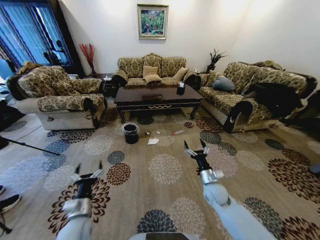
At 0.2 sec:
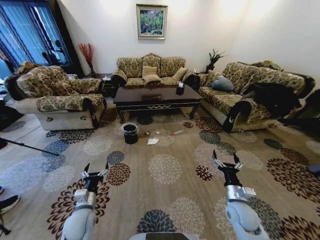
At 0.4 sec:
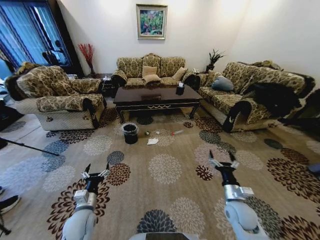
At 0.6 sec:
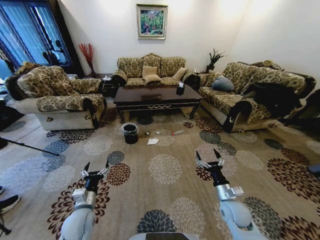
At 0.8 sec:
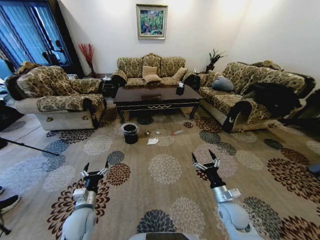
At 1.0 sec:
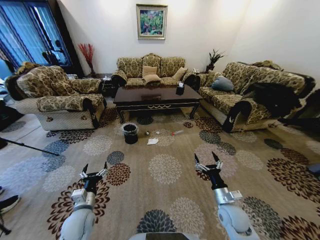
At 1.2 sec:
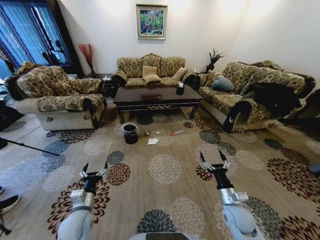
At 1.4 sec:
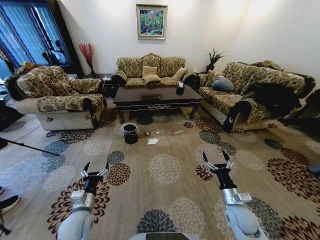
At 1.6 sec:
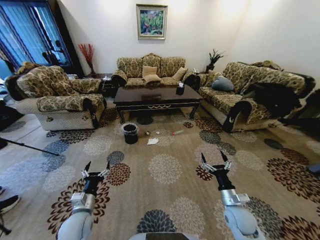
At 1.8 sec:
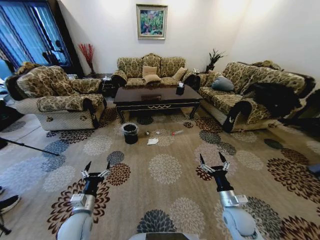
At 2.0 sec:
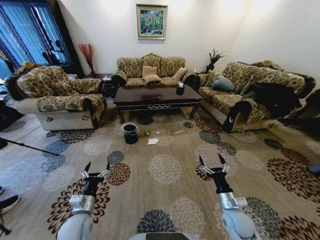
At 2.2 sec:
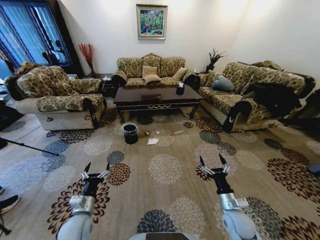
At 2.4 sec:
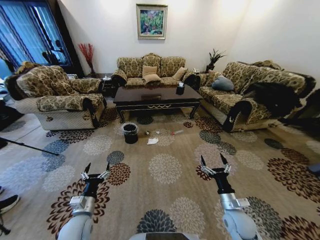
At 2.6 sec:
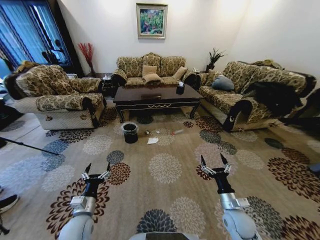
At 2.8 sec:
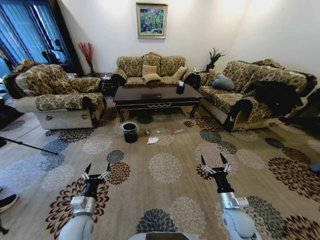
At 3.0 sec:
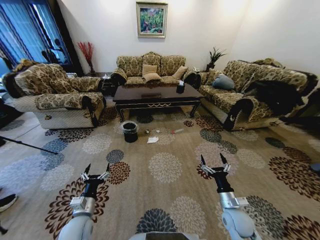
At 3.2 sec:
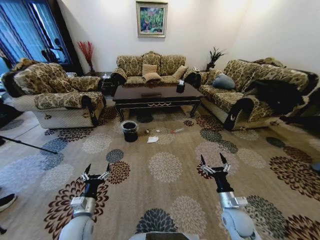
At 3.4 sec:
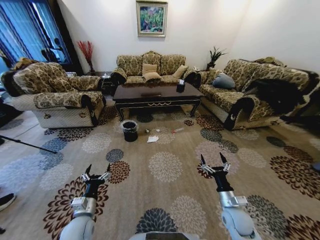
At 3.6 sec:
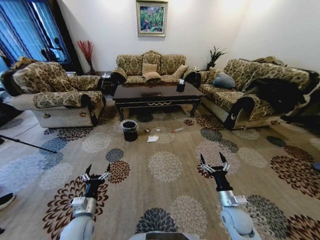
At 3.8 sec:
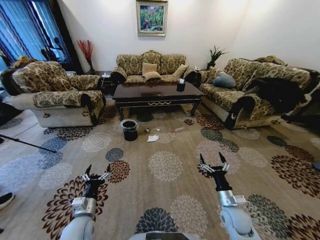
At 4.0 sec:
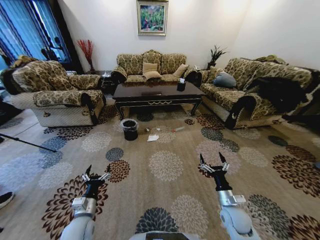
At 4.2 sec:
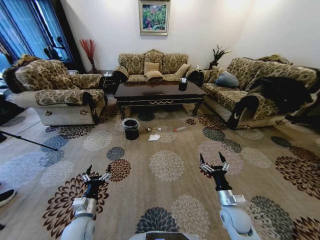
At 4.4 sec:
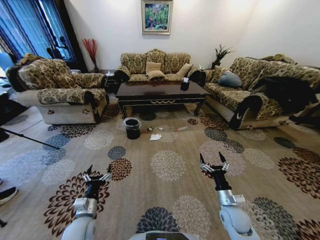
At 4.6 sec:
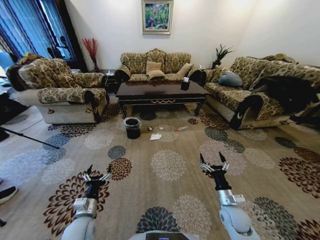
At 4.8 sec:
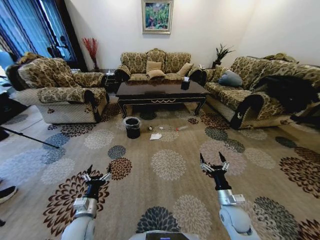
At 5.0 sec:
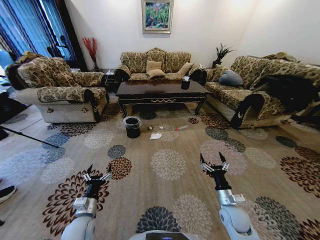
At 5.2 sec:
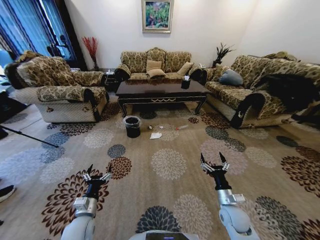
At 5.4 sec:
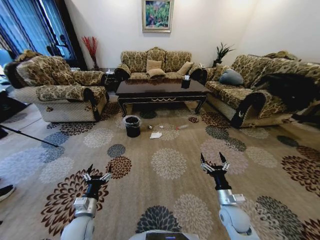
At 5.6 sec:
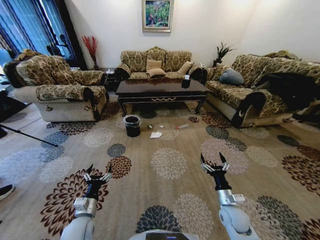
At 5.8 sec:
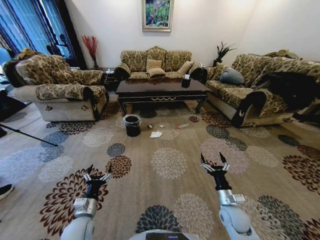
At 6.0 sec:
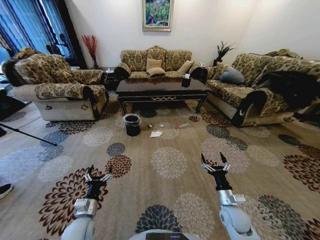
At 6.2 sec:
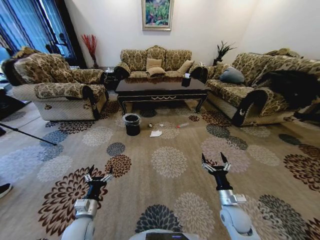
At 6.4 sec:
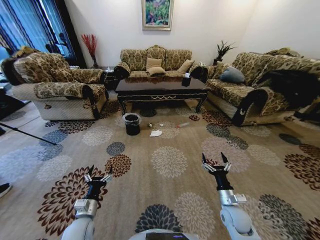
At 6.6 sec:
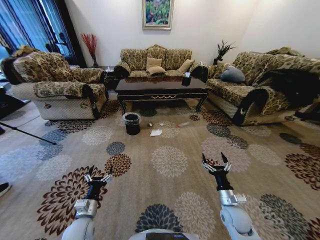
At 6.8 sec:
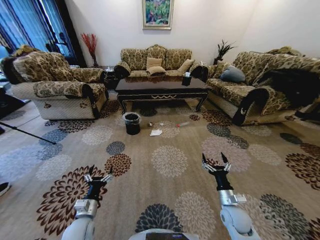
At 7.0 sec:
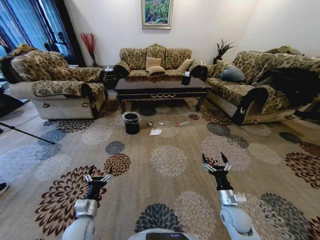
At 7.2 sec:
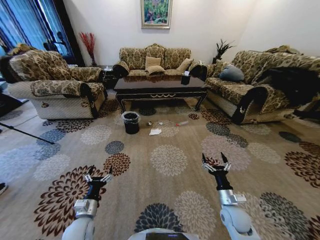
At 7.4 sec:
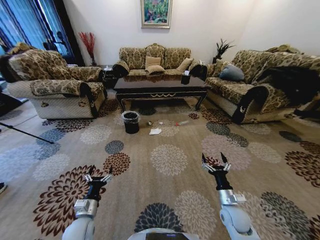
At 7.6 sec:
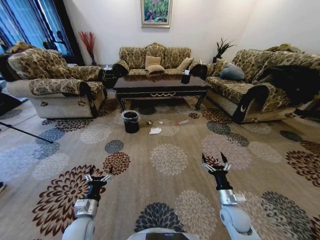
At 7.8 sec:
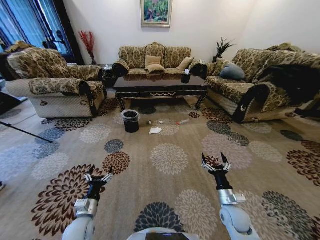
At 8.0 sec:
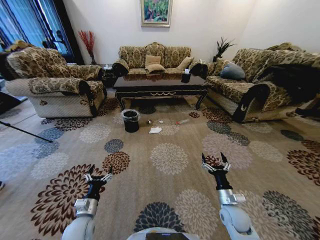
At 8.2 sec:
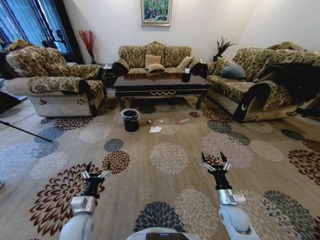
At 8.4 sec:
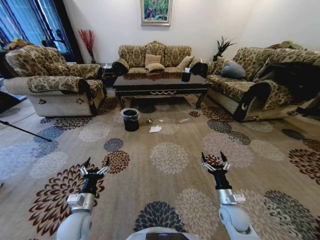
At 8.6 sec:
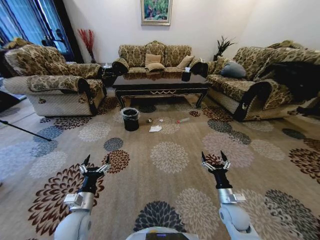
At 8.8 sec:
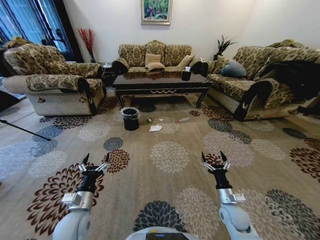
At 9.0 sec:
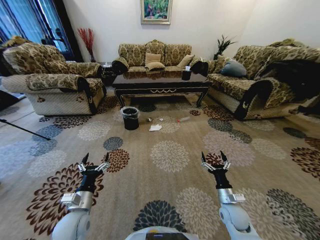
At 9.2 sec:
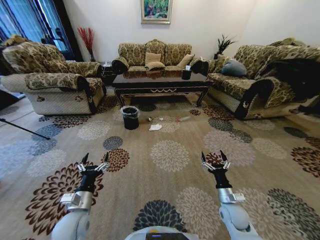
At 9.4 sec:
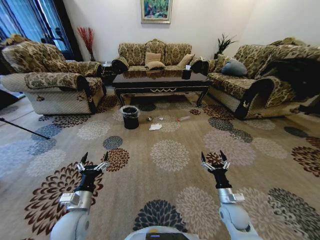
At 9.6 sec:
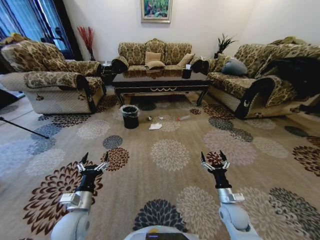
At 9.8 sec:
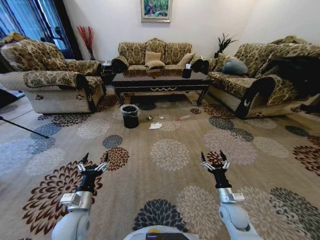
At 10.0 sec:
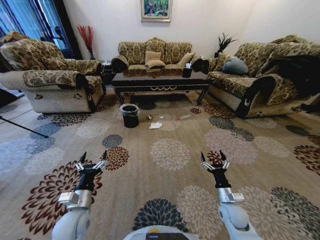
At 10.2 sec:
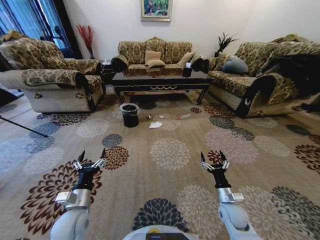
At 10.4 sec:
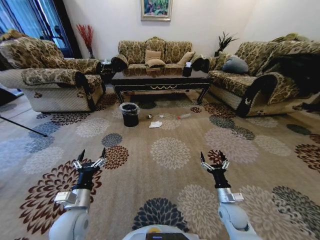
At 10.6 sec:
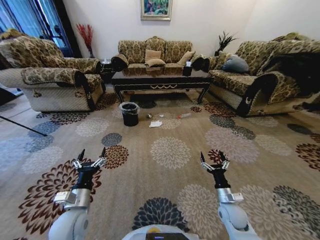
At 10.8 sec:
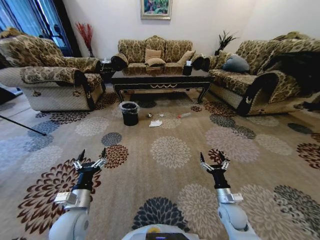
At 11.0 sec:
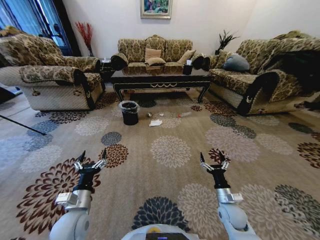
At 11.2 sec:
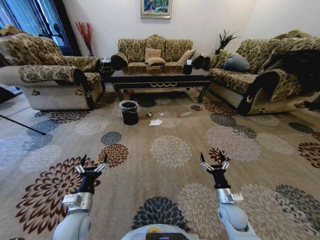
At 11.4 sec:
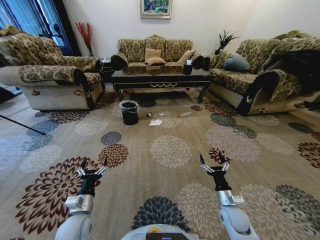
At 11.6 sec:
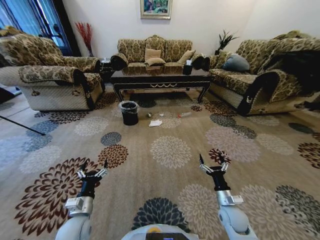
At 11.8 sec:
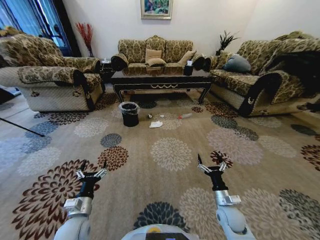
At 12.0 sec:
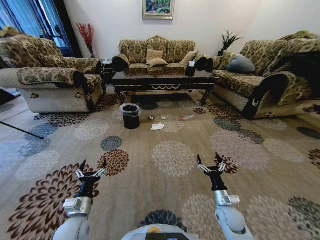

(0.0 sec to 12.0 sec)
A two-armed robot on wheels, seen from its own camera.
Task of the whole recording: Move to the front of the table and pick up the trash from the floor, then place it into the trash bin.
1.6 sec - 3.0 sec: There are only small adjustments of the grippers.
7.6 sec - 9.0 sec: The left gripper goes approximately 5 cm upward.
10.4 sec - 12.0 sec: The left gripper changes place by roughly 5 cm.

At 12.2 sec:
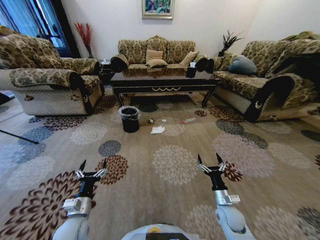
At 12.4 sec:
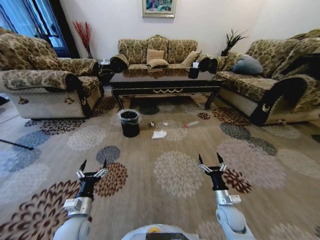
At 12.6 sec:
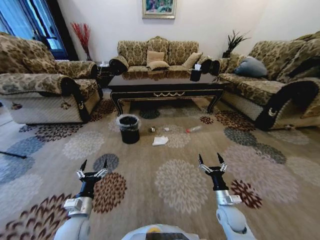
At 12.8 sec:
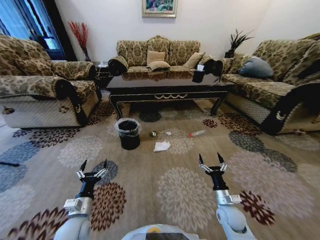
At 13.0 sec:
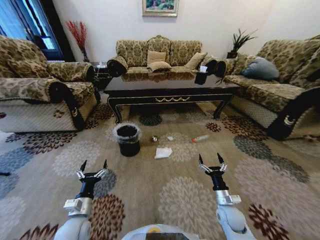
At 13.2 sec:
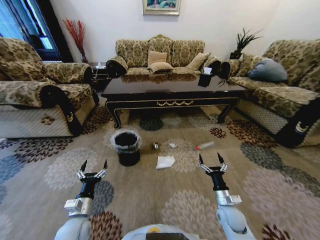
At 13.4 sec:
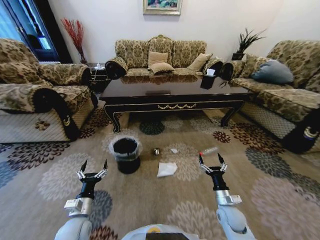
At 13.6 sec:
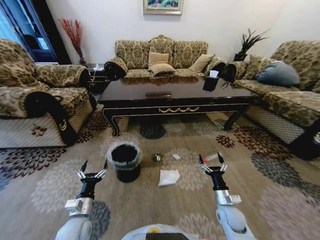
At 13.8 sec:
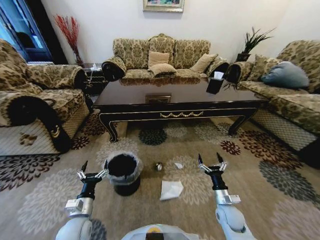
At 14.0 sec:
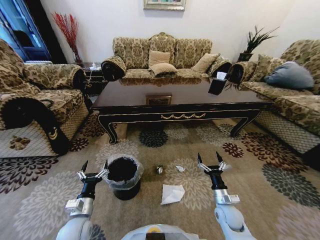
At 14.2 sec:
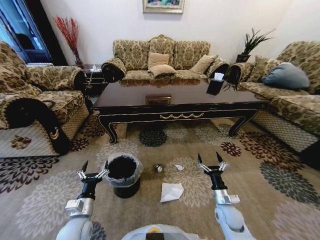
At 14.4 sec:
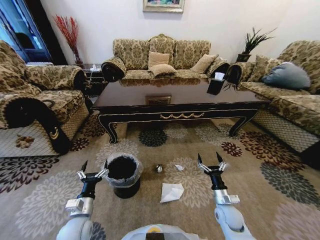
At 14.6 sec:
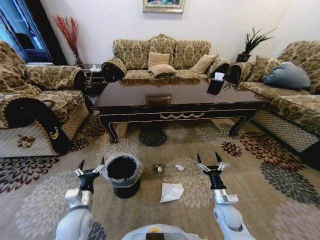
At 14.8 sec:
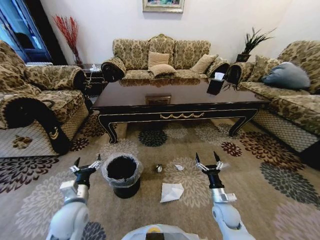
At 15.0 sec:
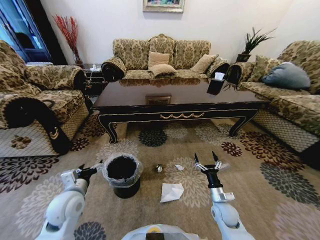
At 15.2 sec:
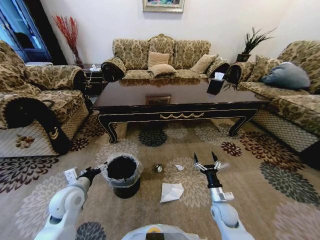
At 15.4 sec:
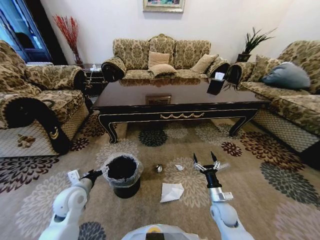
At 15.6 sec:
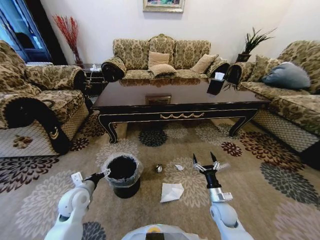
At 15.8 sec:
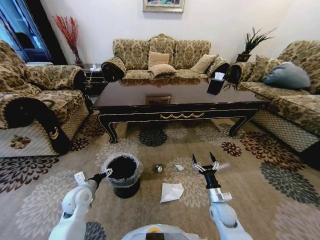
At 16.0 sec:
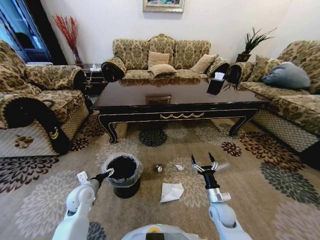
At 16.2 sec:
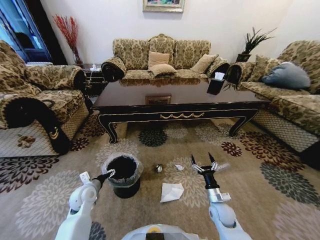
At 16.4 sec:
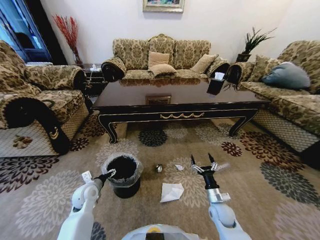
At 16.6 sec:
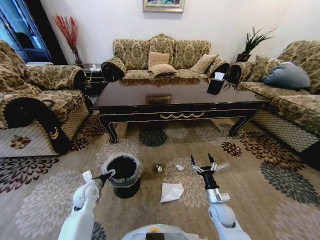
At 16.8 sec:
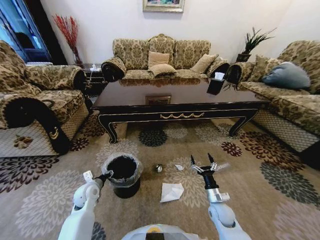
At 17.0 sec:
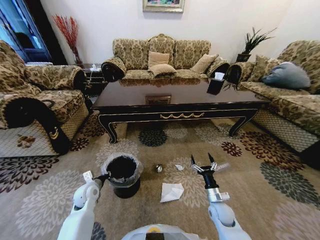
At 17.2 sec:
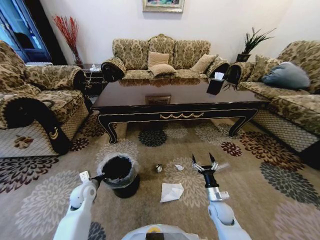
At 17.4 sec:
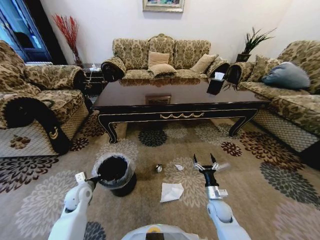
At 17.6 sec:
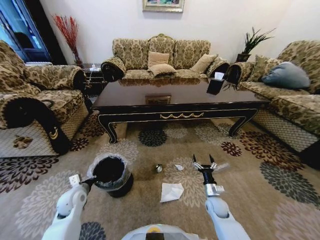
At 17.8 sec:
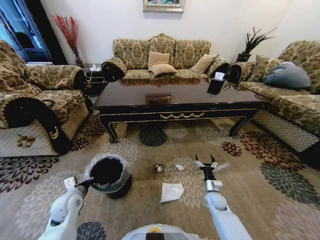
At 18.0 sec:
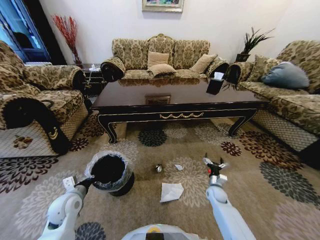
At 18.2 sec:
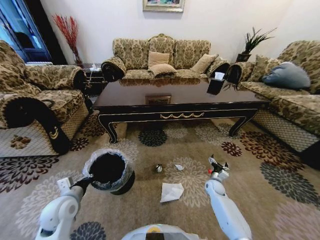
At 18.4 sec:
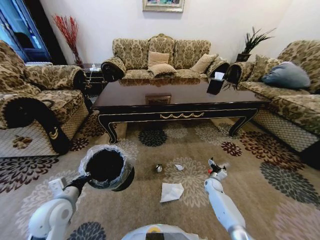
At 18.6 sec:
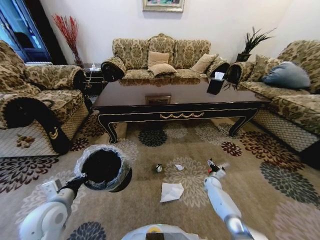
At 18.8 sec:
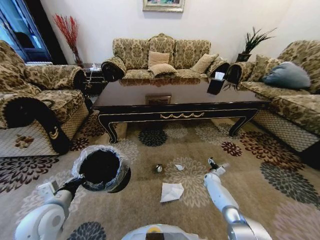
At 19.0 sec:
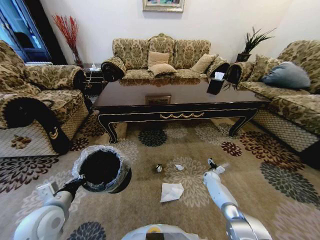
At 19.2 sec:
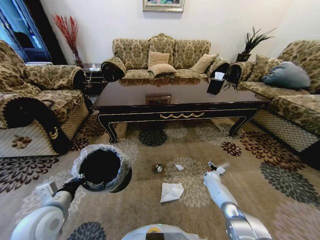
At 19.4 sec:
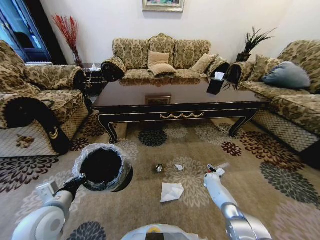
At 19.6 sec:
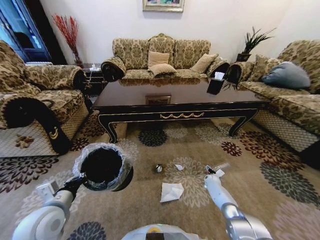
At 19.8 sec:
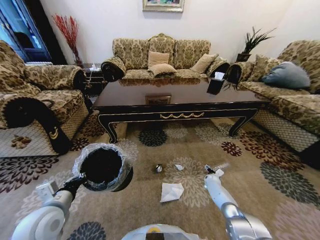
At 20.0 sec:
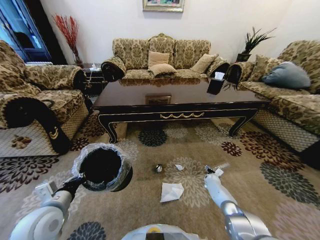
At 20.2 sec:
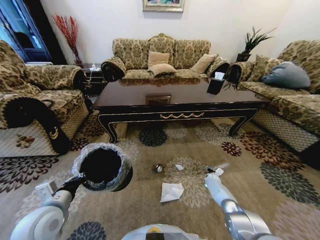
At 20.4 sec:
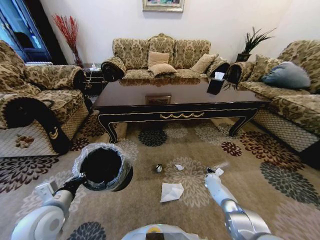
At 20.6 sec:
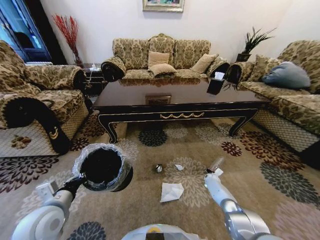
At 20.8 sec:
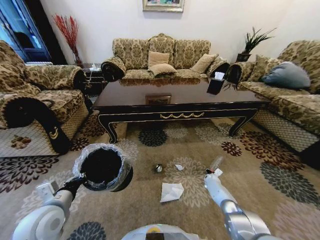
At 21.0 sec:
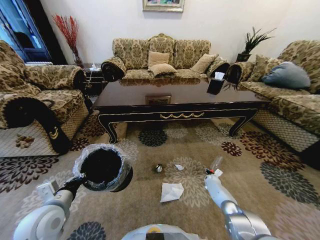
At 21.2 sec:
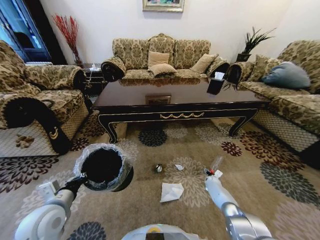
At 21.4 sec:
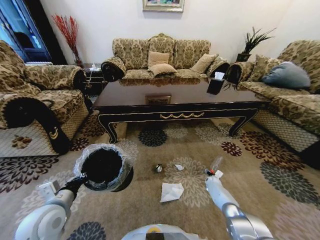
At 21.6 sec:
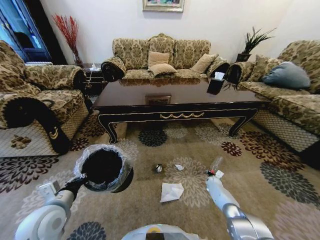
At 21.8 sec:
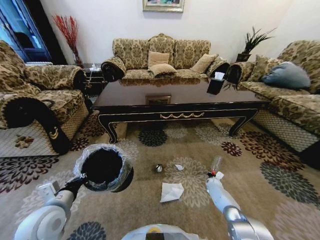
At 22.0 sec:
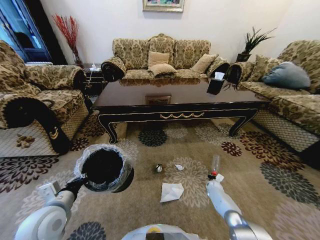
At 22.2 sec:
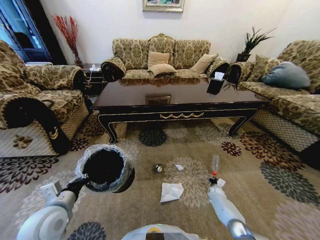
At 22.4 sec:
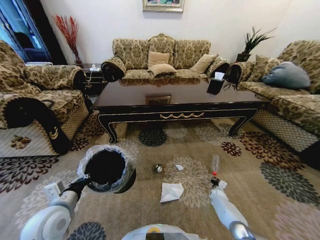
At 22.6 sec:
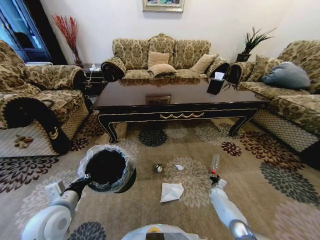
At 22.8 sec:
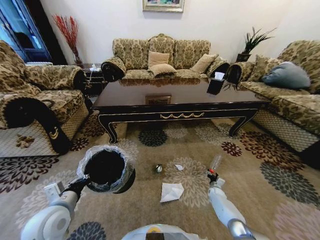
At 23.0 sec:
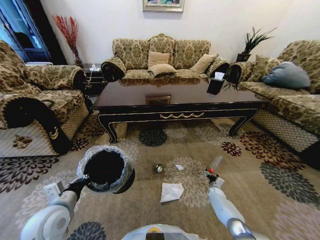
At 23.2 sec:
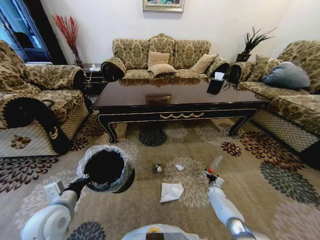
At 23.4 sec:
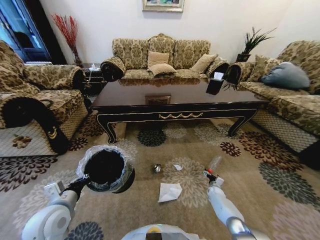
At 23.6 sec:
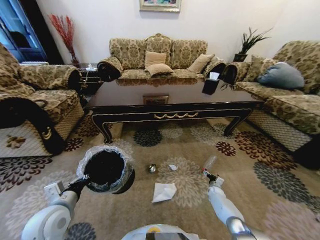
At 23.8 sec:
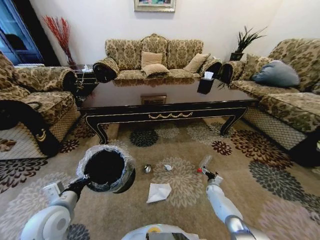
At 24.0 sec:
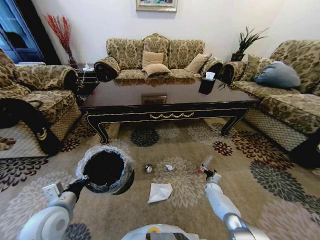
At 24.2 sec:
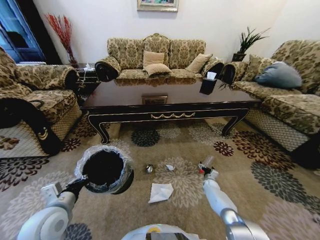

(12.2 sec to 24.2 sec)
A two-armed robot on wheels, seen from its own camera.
Task of the whole recording: Move to the front of the table and pick up the trash from the floor, then place it into the trash bin.
13.8 sec - 15.2 sec: The left gripper travels upward and forward by some 10 cm.
15.2 sec - 16.6 sec: The left gripper travels downward and forward by about 10 cm.
16.6 sec - 18.2 sec: The right gripper is displaced forward, downward and to the right by some 15 cm, while the left gripper goes some 10 cm upward and backward, and closes.
18.2 sec - 19.8 sec: The right gripper is displaced forward and downward by roughly 10 cm; the left gripper heads upward, covering some 5 cm.
19.8 sec - 21.2 sec: The right gripper closes, then opens again.
21.2 sec - 22.6 sec: The right gripper heads backward, covering approximately 5 cm, and closes up.
22.6 sec - 24.2 sec: The right gripper goes about 5 cm forward, and opens up.
